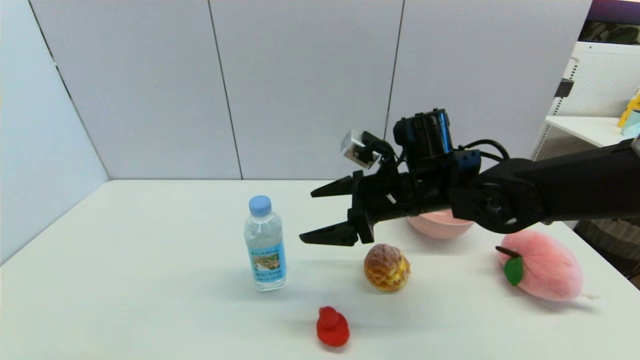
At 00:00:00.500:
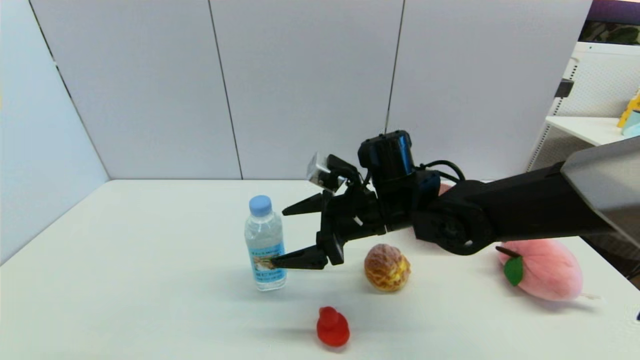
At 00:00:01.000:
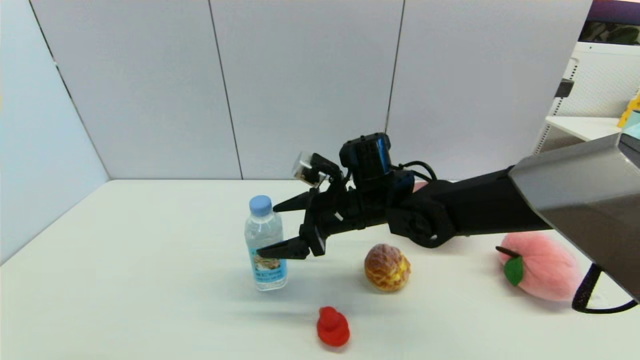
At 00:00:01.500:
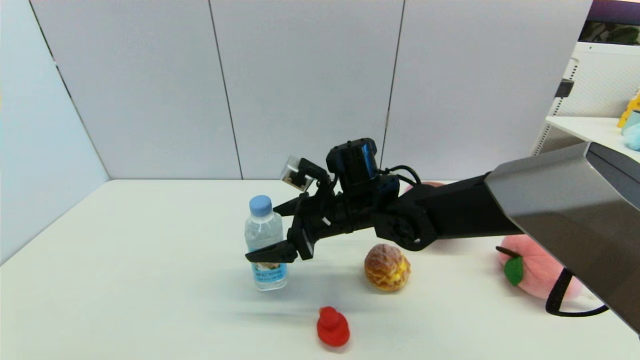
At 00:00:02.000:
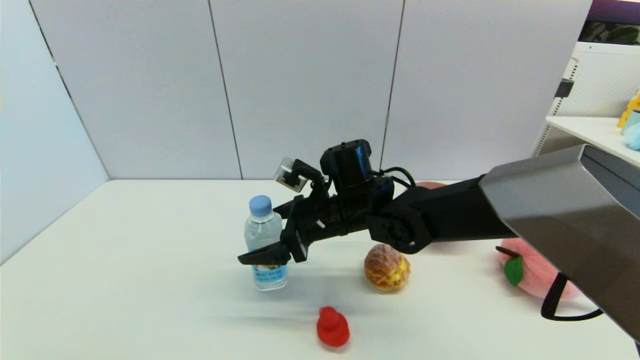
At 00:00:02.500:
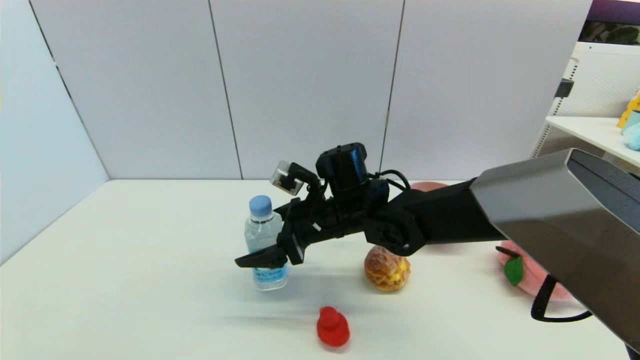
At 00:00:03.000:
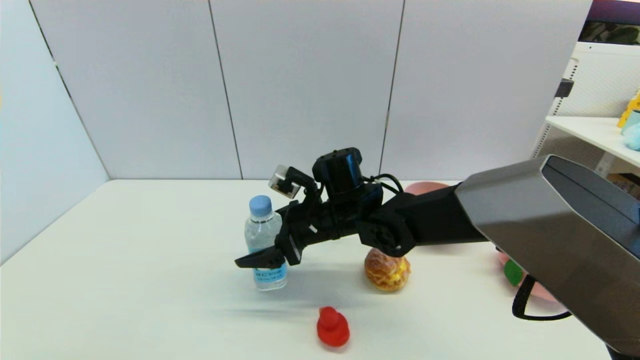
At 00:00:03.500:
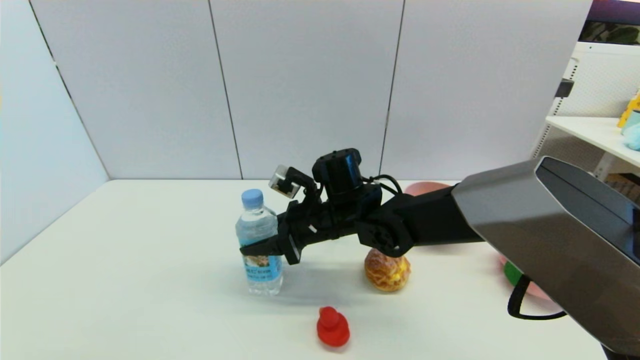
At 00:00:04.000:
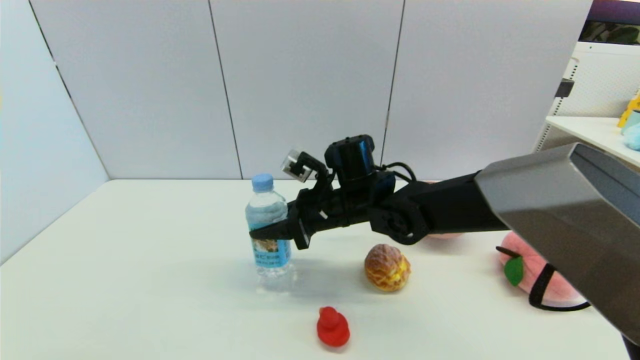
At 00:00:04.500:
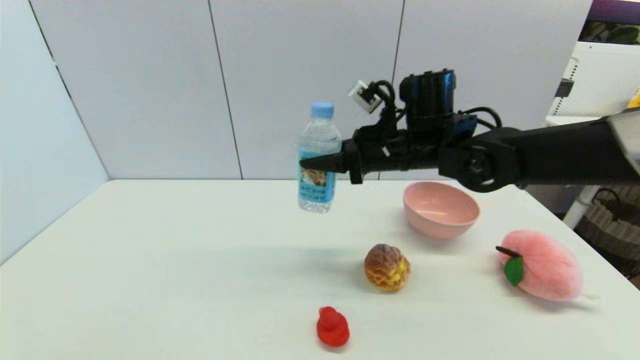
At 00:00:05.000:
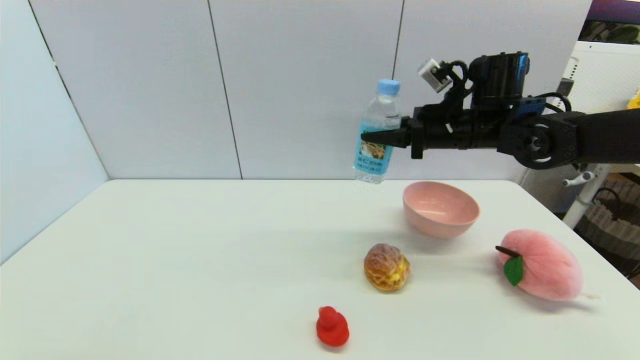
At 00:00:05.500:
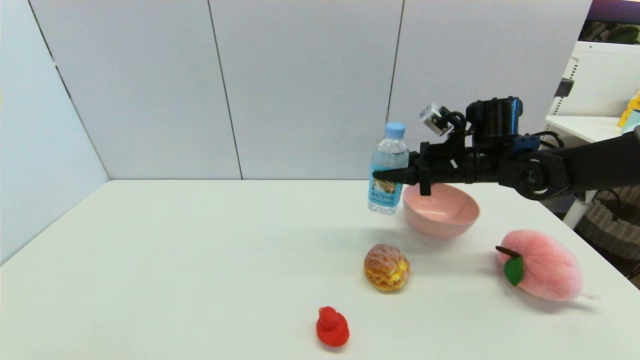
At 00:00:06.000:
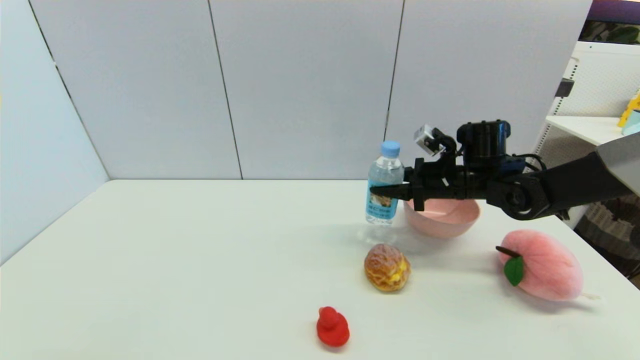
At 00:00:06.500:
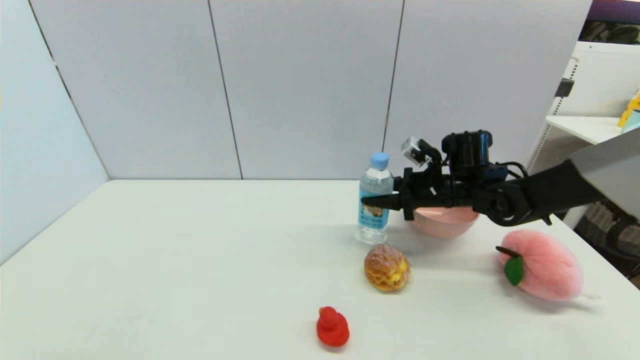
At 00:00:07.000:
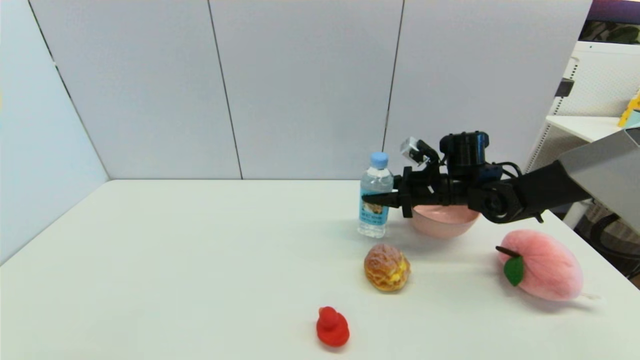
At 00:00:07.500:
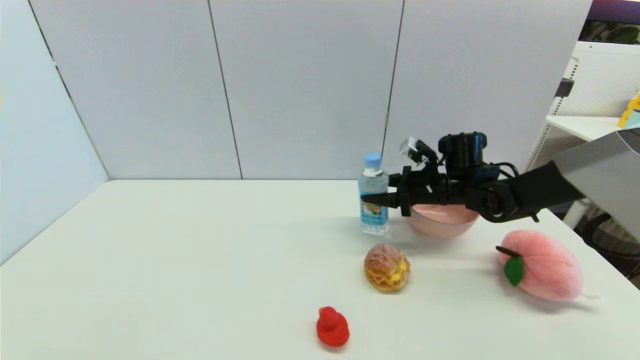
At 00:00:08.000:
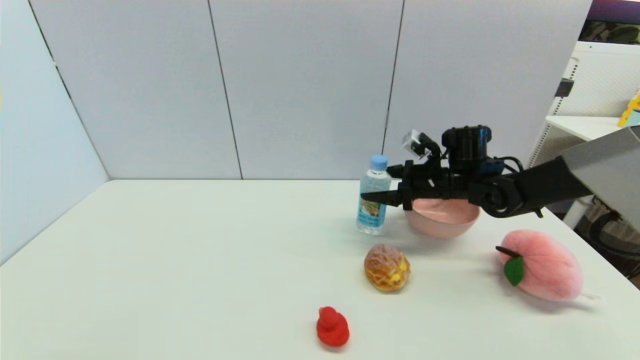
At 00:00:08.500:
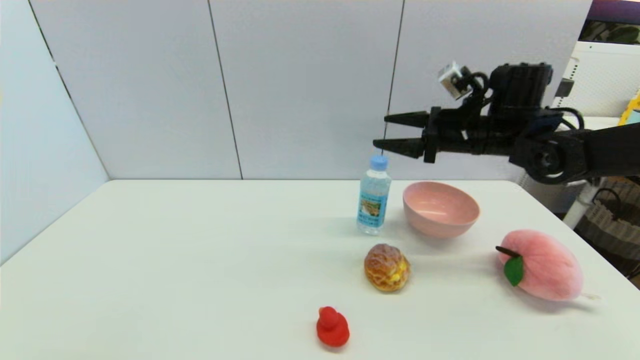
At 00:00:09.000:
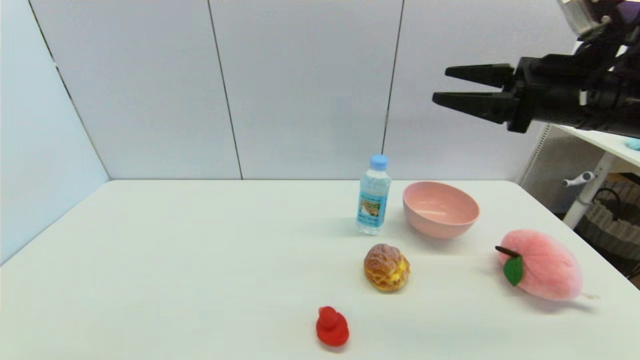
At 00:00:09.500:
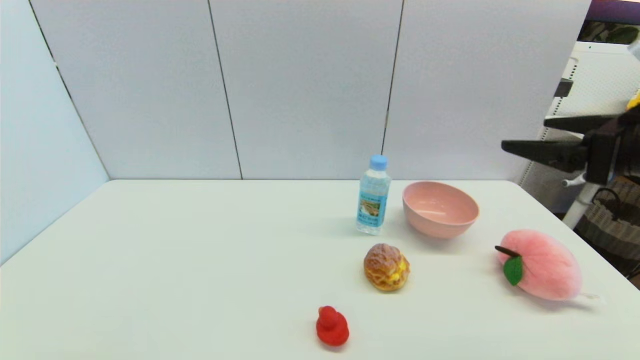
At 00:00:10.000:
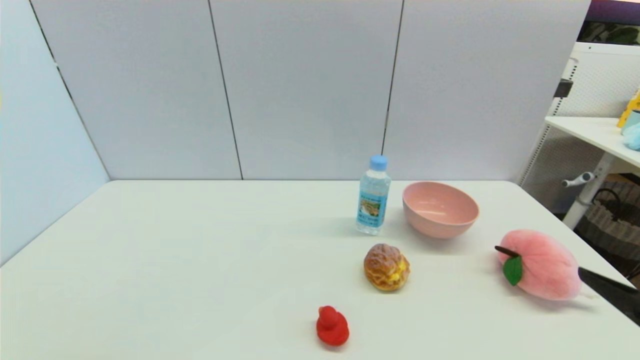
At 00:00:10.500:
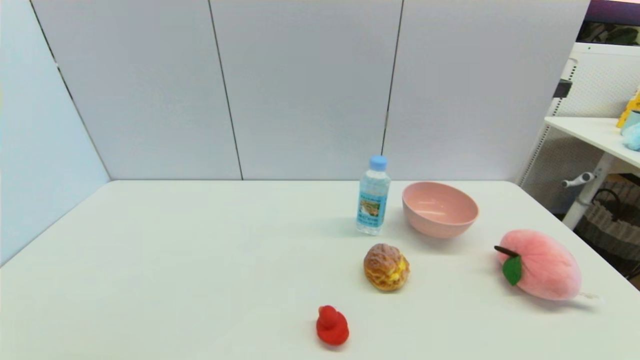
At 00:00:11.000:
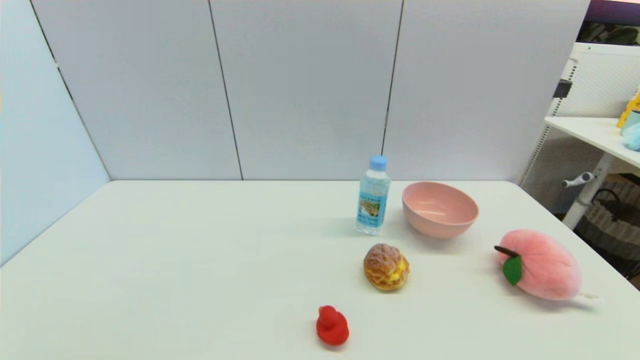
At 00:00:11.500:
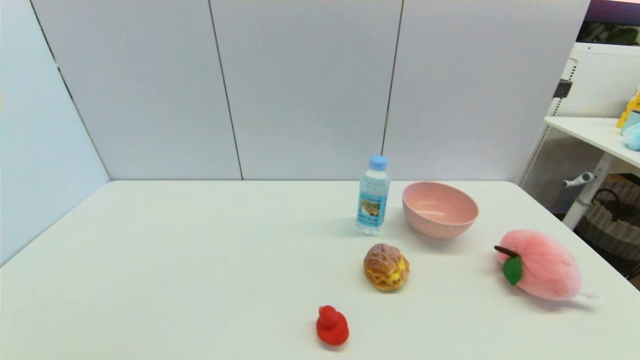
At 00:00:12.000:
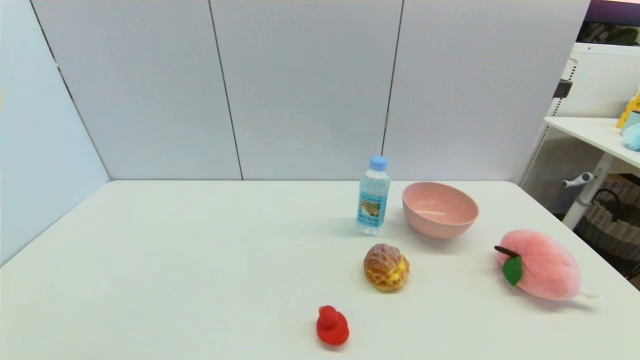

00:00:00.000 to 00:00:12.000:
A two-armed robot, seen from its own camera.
Step, 00:00:00.000 to 00:00:03.500: Grasp the soda water with right gripper.
Step, 00:00:04.000 to 00:00:08.000: Place the soda water on the table with right gripper.
00:00:00.000 to 00:00:02.000: The right gripper goes roughly 10 cm to the left.
00:00:02.000 to 00:00:04.000: The right gripper closes up.
00:00:04.000 to 00:00:06.000: The right gripper heads to the right, covering roughly 20 cm.
00:00:06.000 to 00:00:08.000: The right gripper opens up.
00:00:08.000 to 00:00:10.000: The right gripper goes roughly 35 cm backward.
00:00:10.000 to 00:00:12.000: The right gripper reaches some 10 cm downward, then returns.
